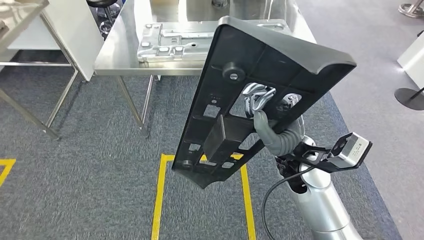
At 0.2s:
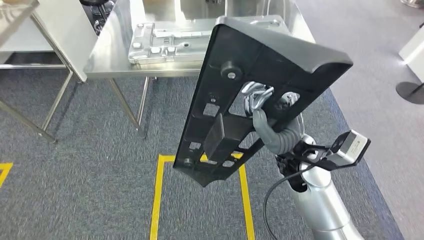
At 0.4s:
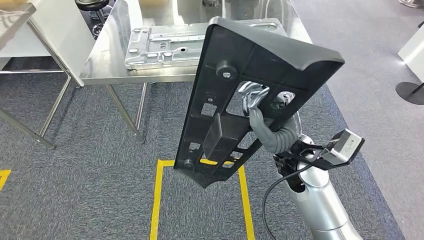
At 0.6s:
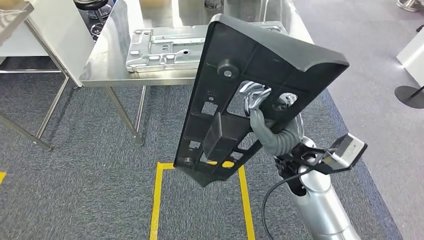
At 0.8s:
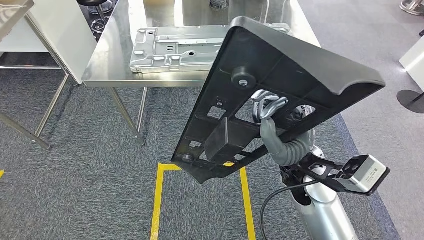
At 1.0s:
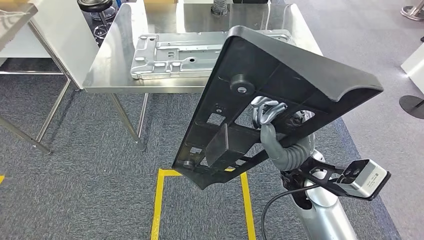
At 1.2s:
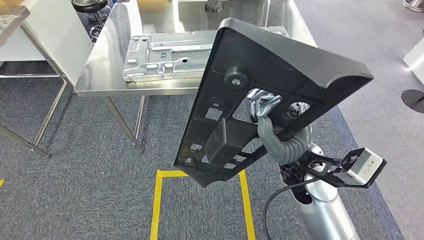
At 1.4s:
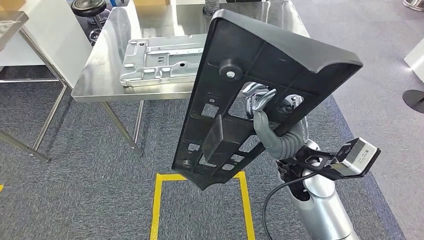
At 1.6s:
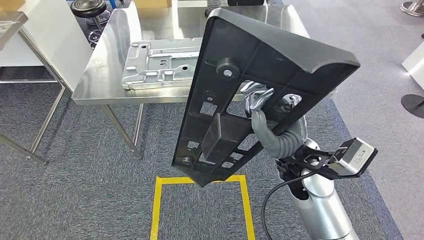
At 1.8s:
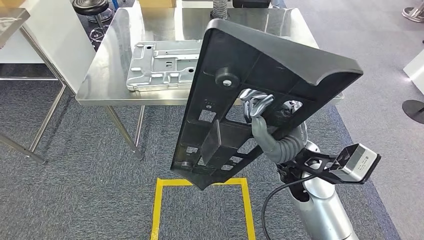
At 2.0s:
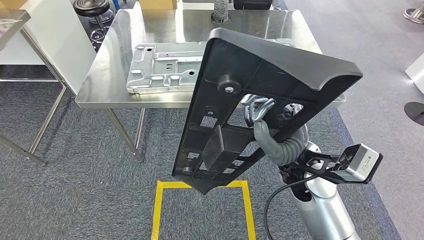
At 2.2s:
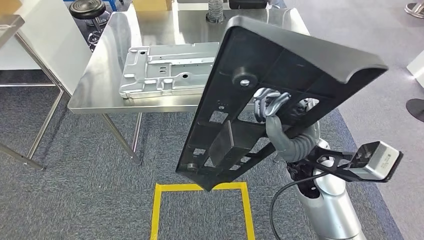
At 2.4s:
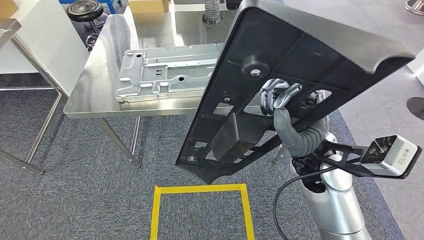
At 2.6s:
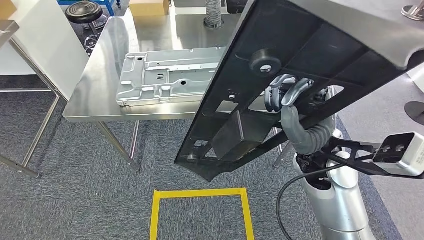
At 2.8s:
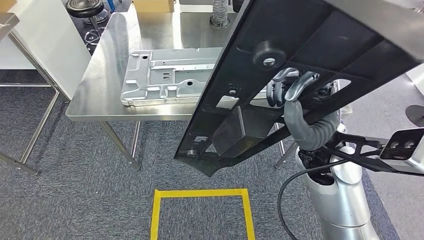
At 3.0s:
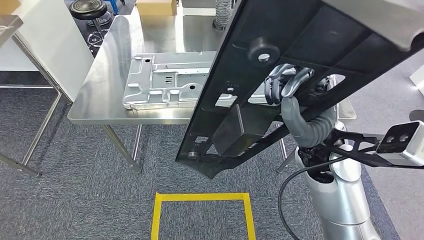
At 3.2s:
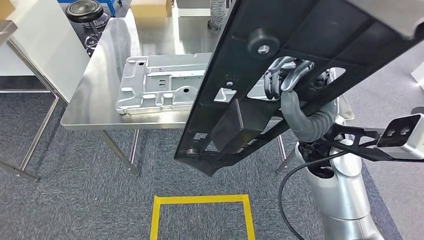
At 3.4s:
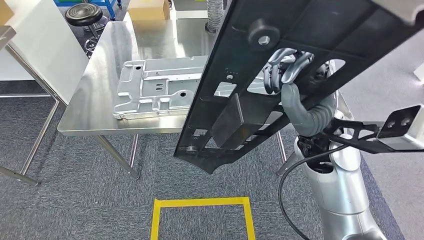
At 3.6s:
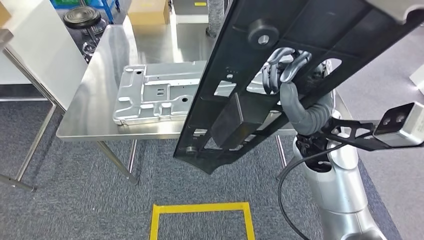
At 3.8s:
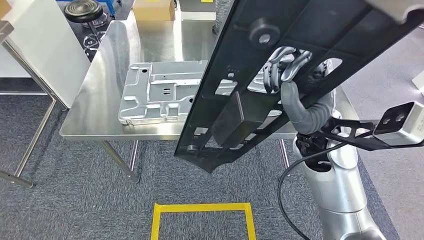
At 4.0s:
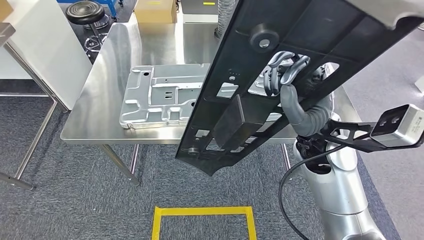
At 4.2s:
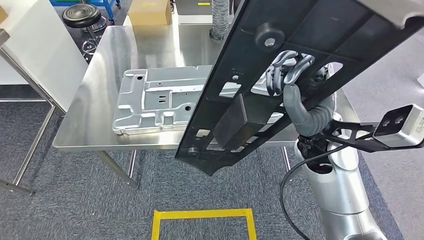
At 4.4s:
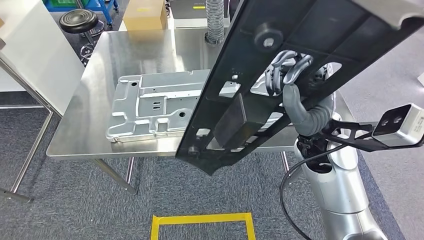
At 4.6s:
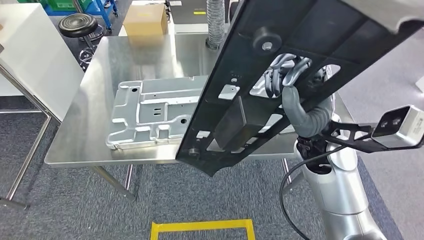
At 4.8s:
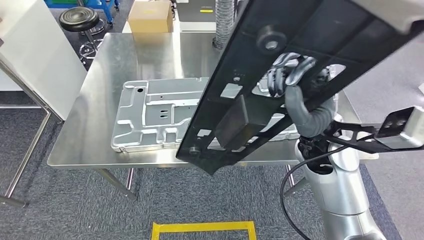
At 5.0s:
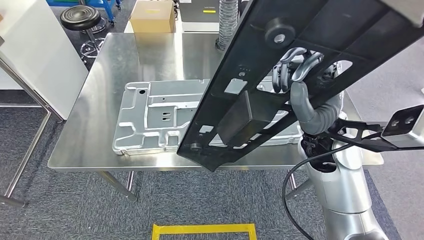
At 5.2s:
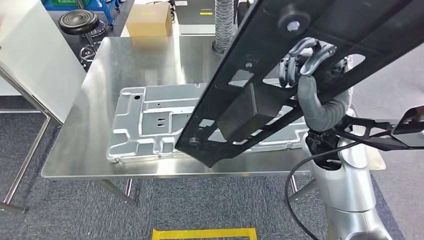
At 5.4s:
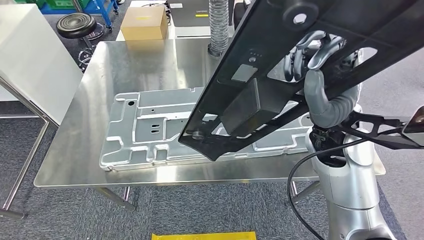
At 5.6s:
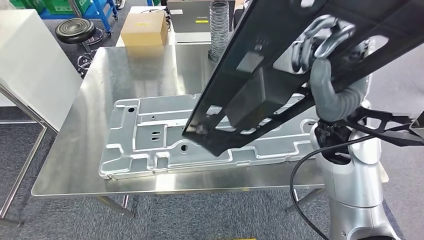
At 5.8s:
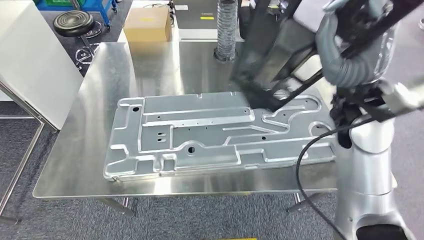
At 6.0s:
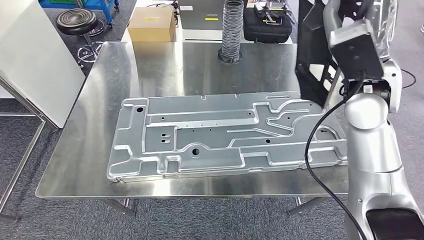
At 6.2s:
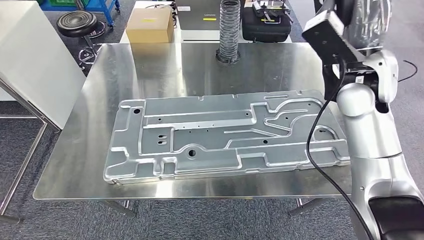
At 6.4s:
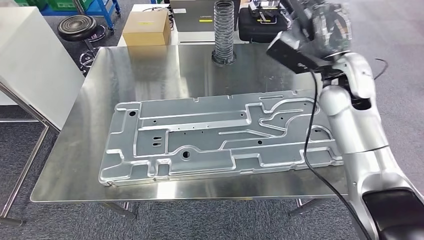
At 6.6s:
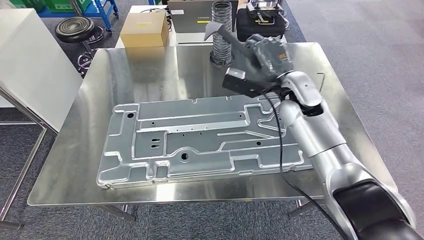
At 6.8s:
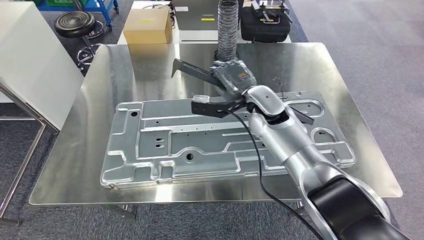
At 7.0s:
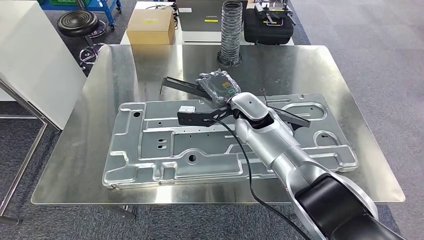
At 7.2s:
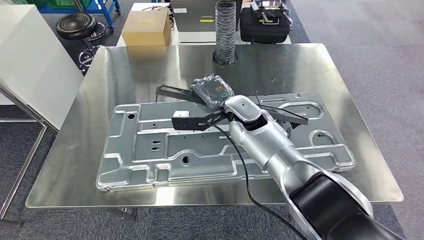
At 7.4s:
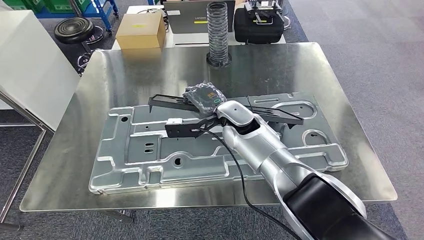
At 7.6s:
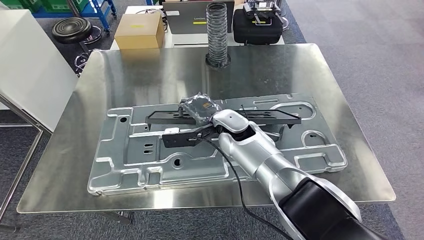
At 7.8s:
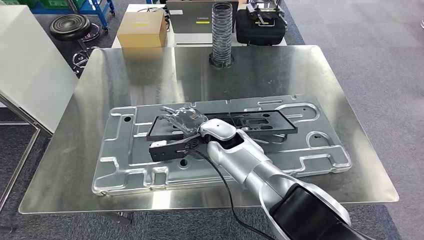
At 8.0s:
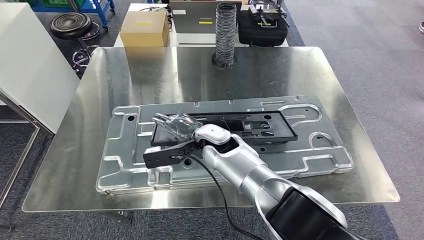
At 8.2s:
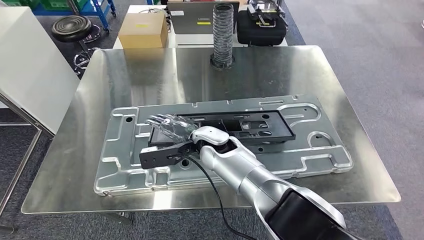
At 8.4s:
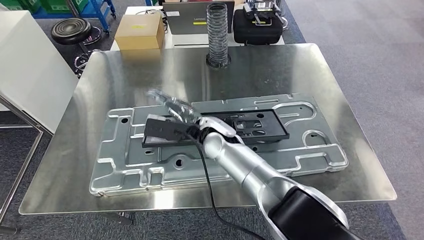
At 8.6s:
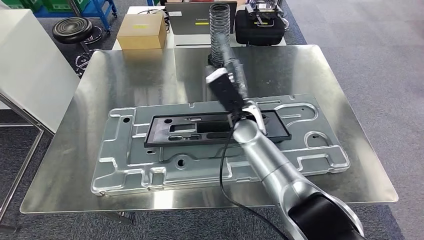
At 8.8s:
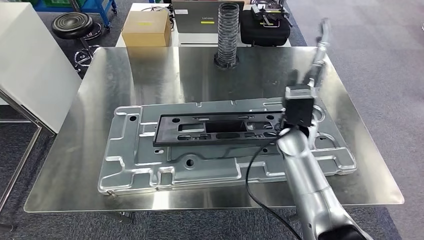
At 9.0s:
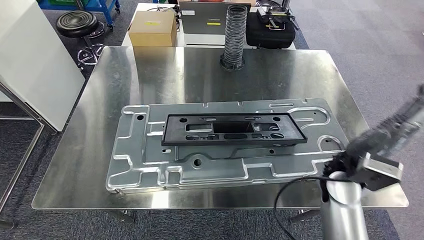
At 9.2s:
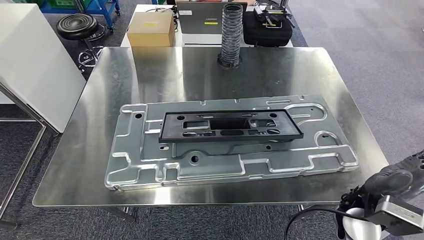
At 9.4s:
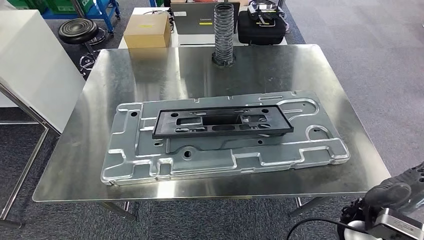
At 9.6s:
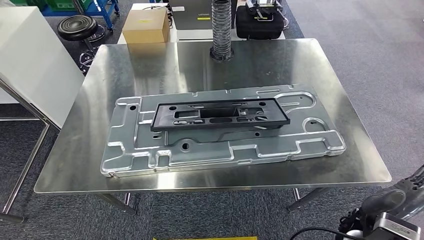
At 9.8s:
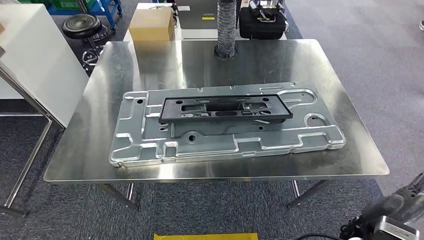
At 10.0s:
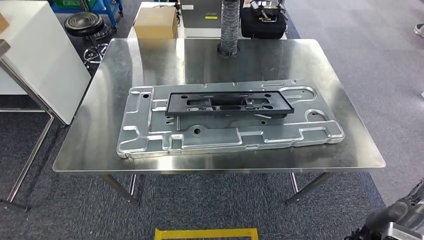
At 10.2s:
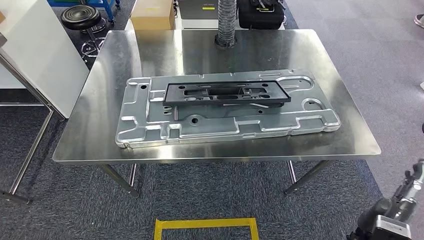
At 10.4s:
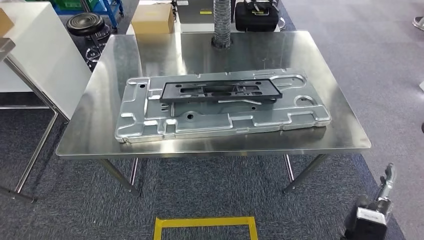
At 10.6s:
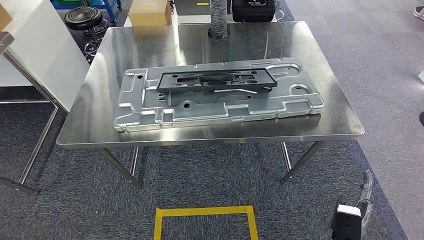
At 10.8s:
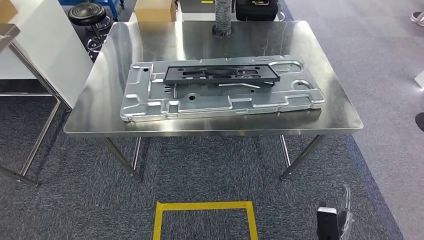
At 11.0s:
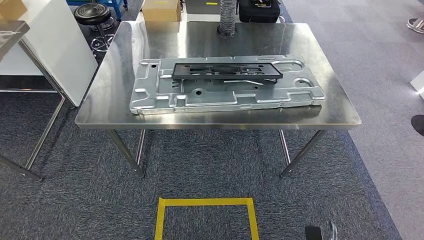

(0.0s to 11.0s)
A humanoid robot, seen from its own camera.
Step, 0.0s - 4.8s: Move the small parts to the workbench.
Step, 5.0s - 10.6s: Insert the small parts into the corresponding holes on the workbench.

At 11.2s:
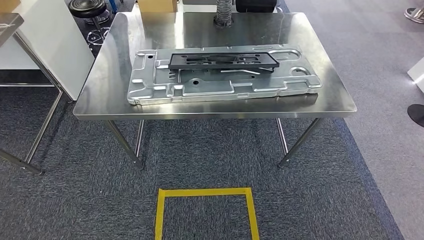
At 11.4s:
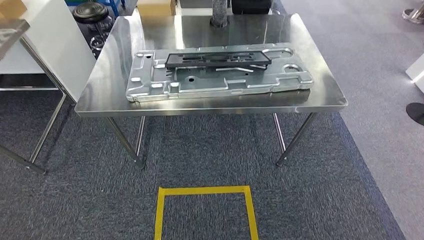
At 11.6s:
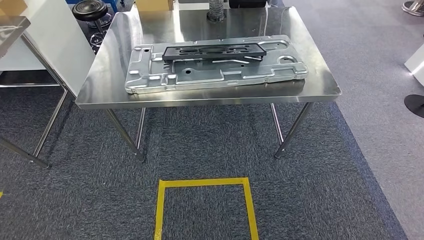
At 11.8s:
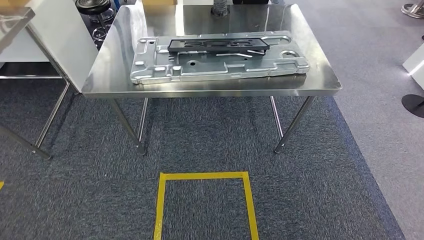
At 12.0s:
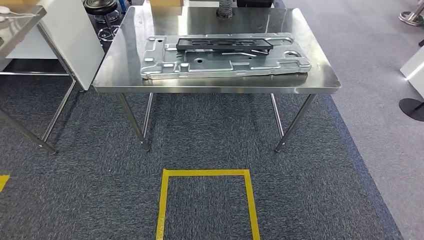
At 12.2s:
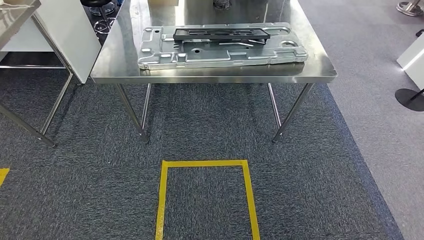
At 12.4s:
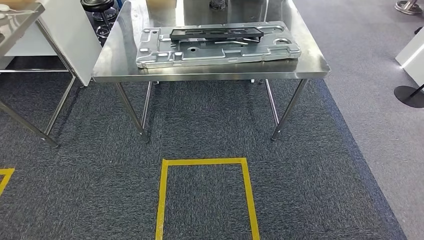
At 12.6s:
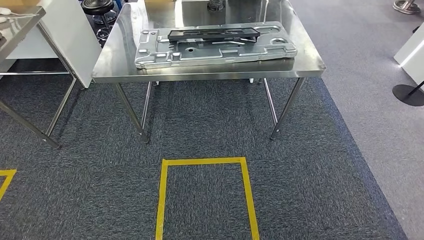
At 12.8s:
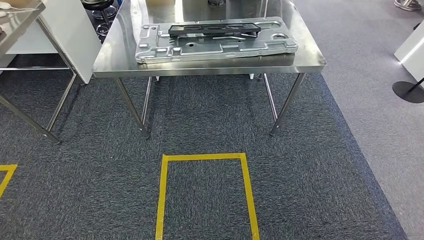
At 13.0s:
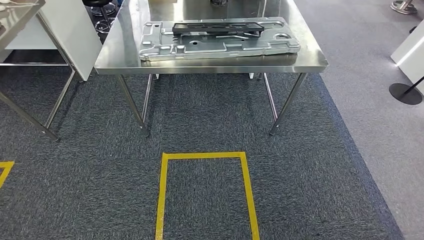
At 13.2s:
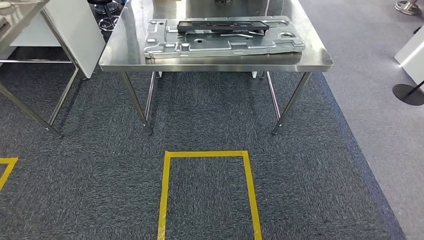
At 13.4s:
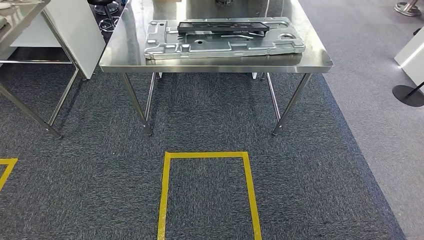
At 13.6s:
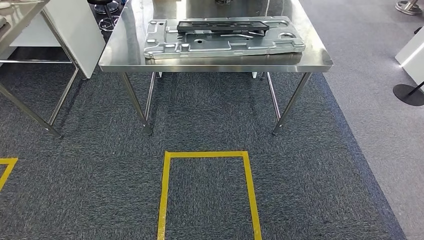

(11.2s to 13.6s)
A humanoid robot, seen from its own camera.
Step, 11.2s - 13.6s: Move to the initial position at the workbench.
12.4s - 13.6s: The hands make only small movements.

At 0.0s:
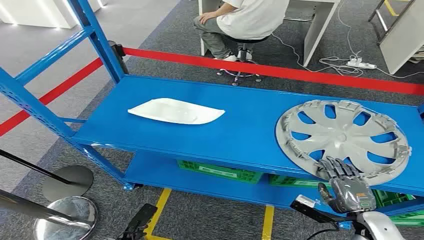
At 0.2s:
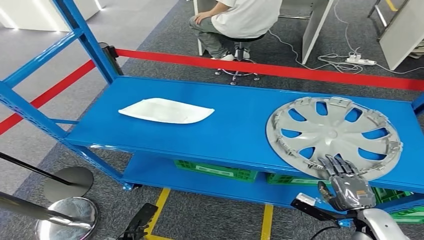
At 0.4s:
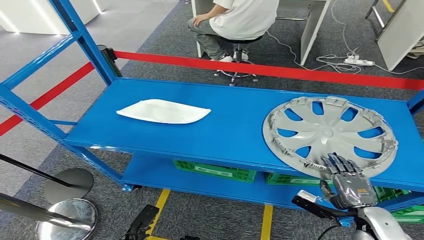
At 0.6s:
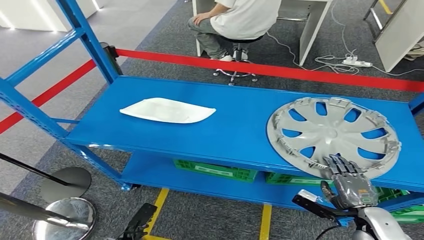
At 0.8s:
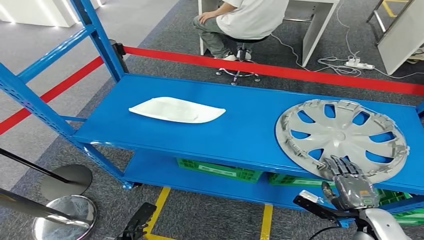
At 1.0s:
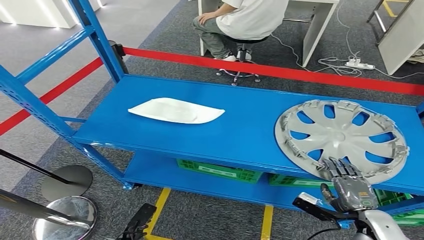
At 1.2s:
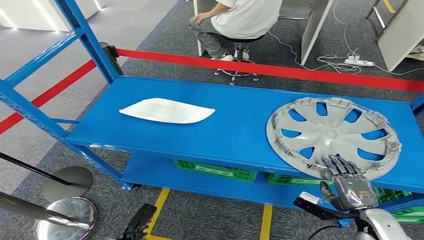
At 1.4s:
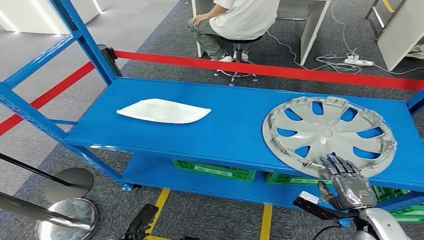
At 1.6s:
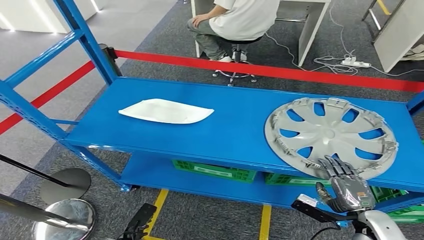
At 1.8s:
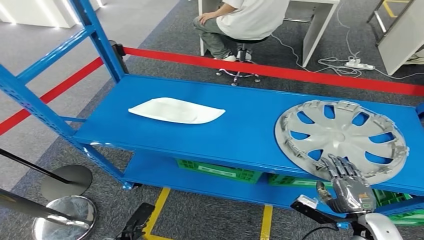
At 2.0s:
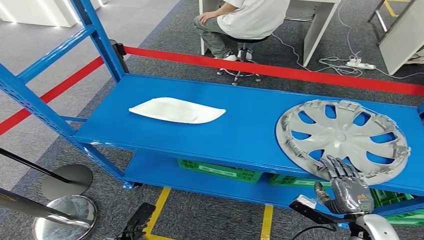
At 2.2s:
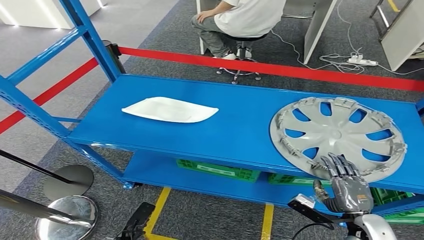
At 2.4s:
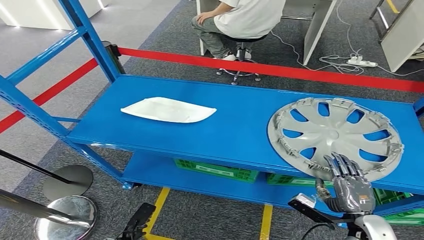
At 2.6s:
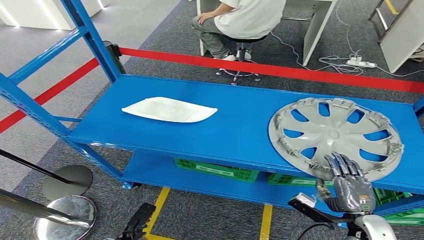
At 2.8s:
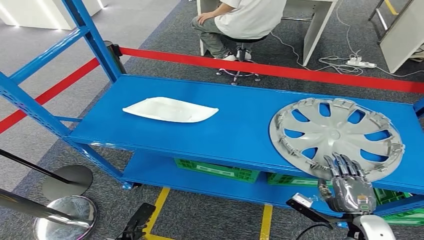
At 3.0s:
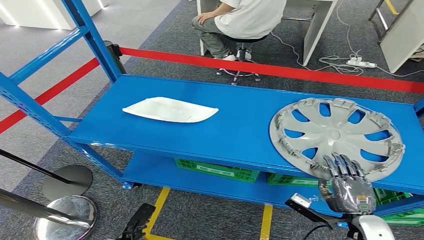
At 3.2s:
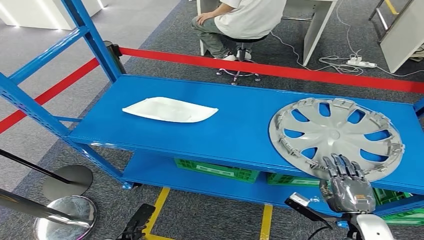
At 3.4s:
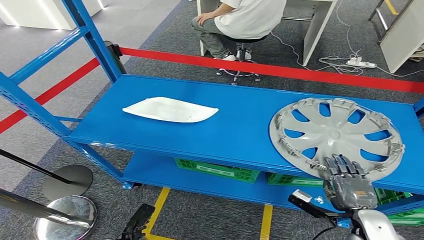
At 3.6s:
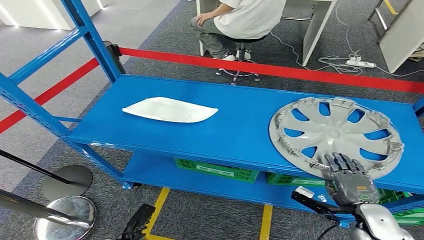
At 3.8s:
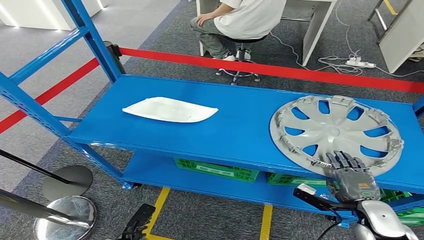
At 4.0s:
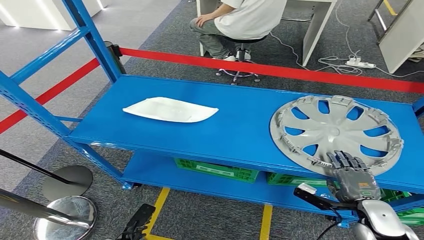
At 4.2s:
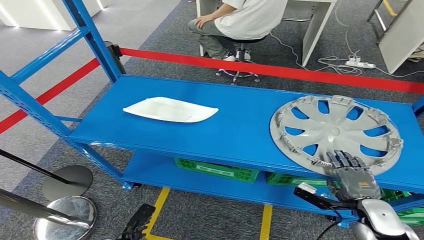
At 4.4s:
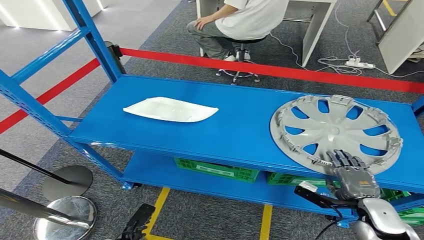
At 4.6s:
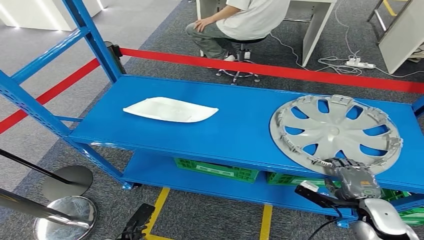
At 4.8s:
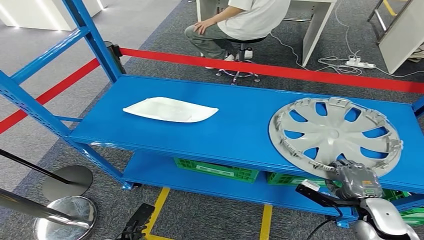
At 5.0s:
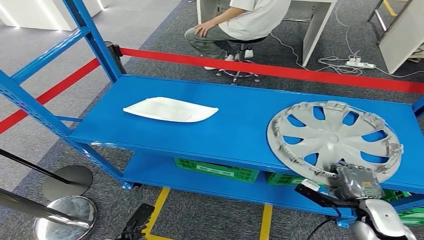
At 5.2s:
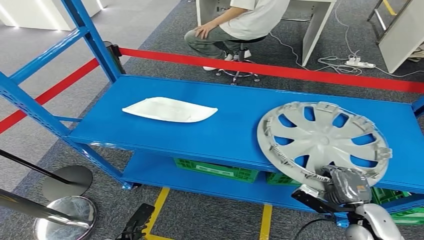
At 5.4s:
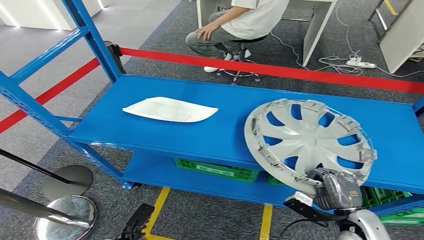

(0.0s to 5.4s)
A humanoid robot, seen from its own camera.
2.8s - 4.0s: The hands move only a little.
4.0s - 5.4s: The right hand moves roughly 5 cm.
